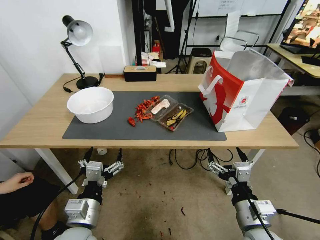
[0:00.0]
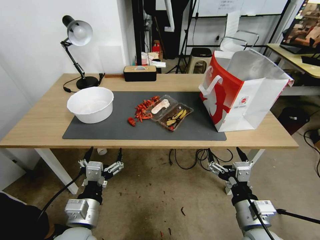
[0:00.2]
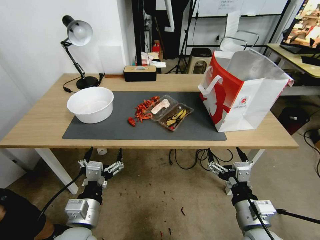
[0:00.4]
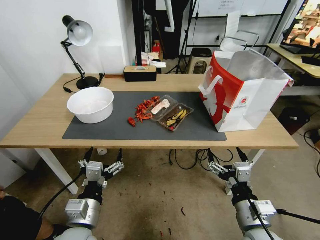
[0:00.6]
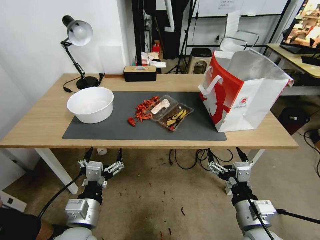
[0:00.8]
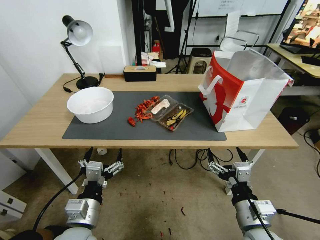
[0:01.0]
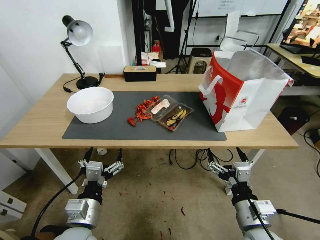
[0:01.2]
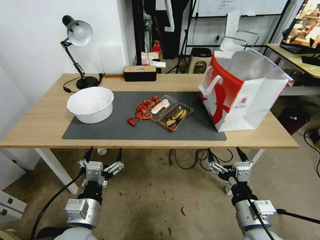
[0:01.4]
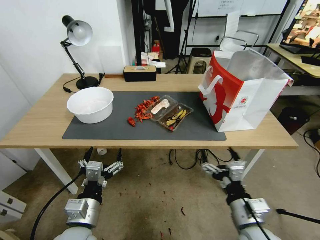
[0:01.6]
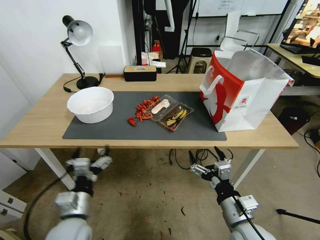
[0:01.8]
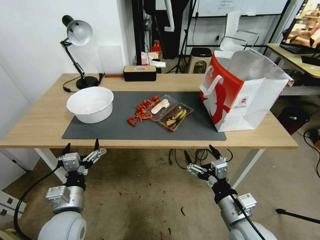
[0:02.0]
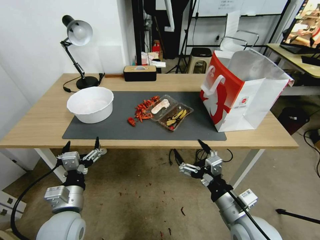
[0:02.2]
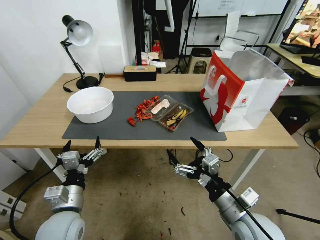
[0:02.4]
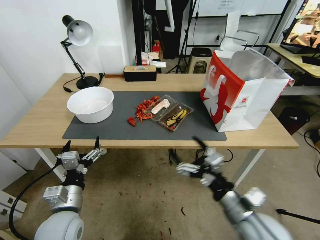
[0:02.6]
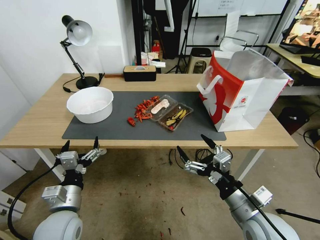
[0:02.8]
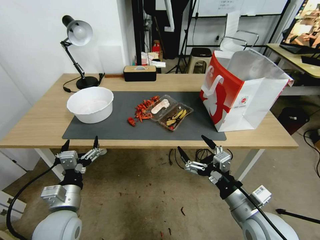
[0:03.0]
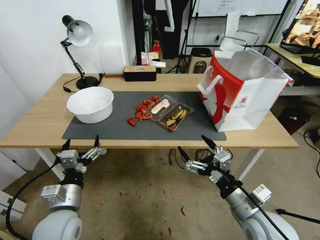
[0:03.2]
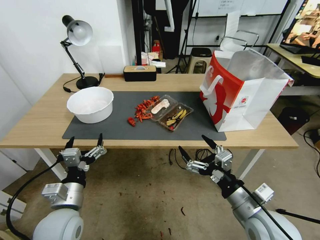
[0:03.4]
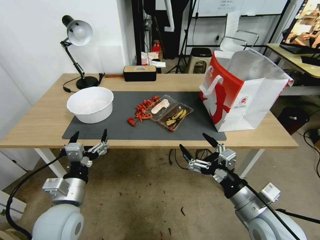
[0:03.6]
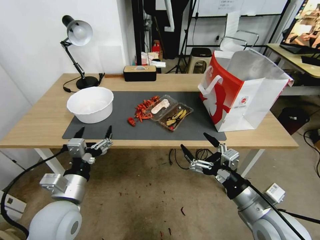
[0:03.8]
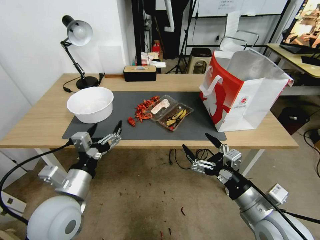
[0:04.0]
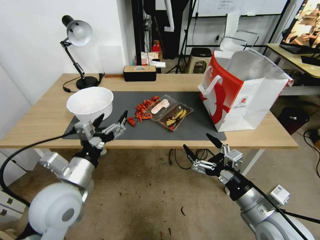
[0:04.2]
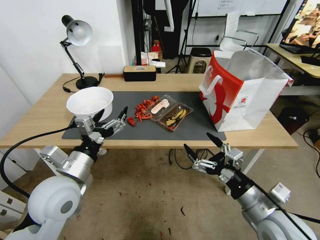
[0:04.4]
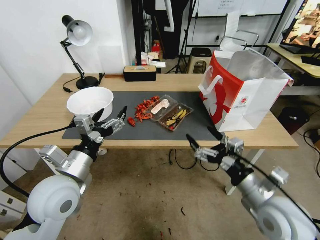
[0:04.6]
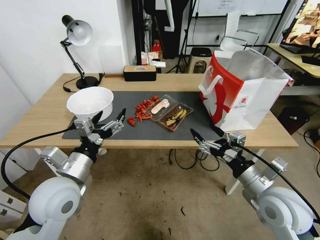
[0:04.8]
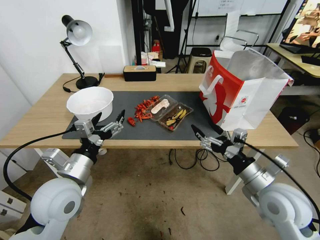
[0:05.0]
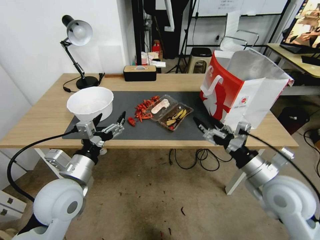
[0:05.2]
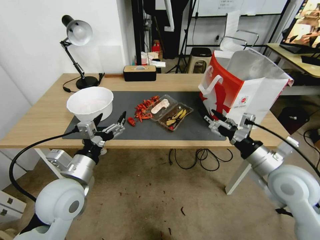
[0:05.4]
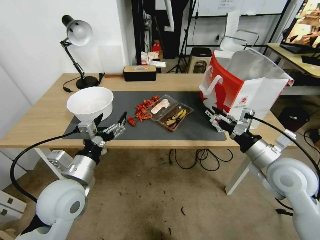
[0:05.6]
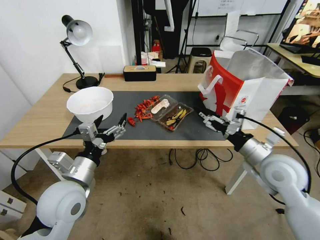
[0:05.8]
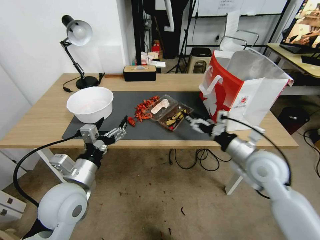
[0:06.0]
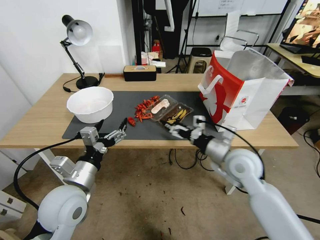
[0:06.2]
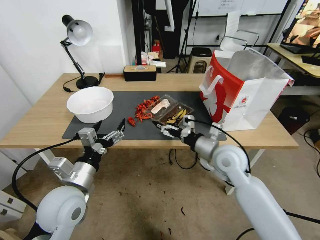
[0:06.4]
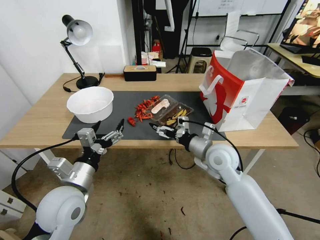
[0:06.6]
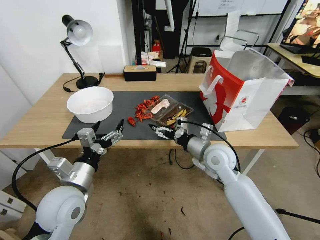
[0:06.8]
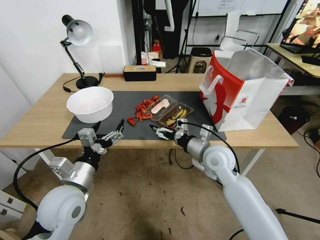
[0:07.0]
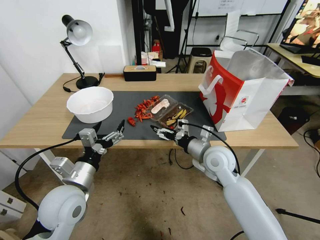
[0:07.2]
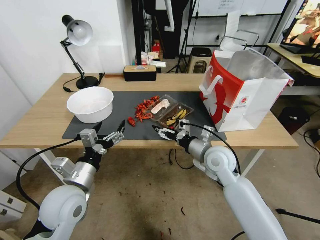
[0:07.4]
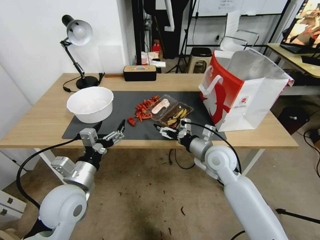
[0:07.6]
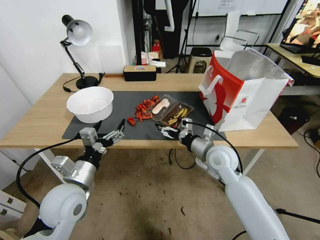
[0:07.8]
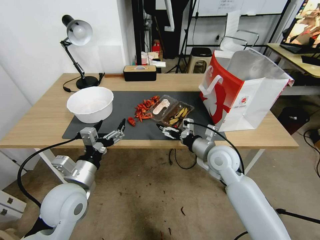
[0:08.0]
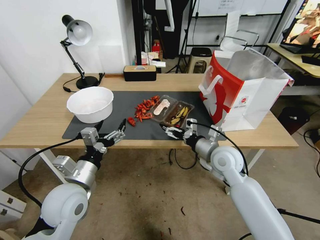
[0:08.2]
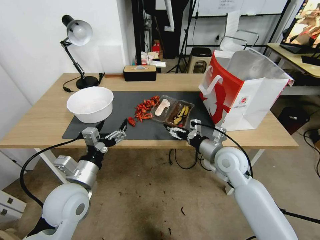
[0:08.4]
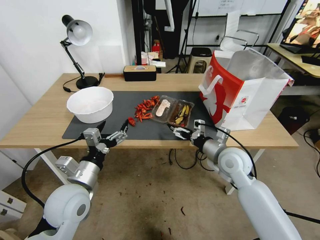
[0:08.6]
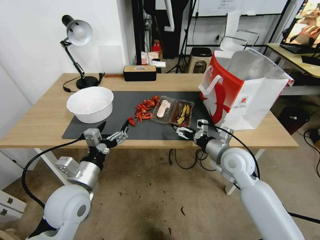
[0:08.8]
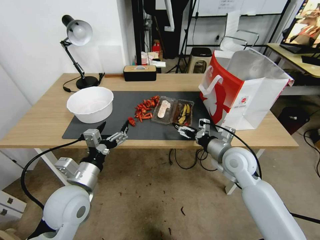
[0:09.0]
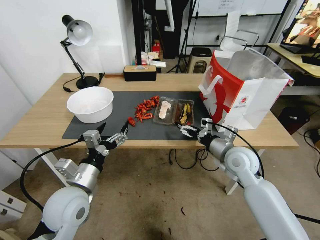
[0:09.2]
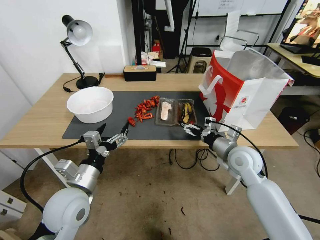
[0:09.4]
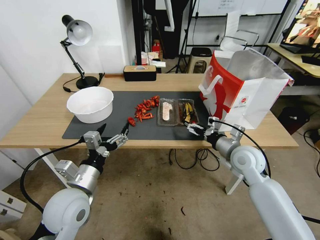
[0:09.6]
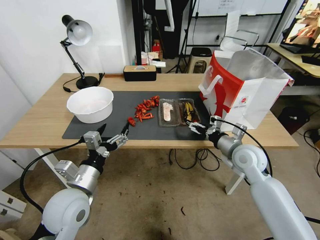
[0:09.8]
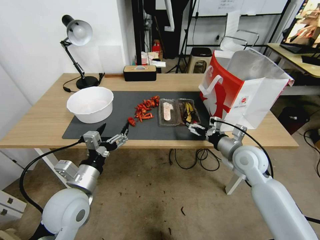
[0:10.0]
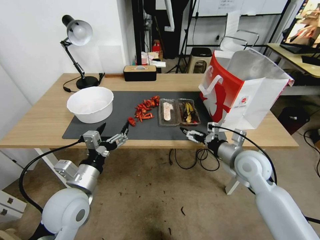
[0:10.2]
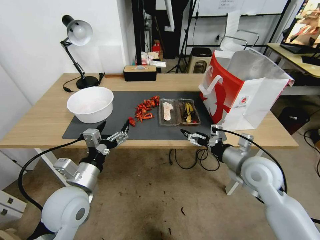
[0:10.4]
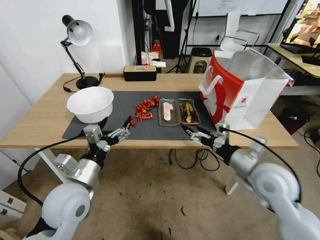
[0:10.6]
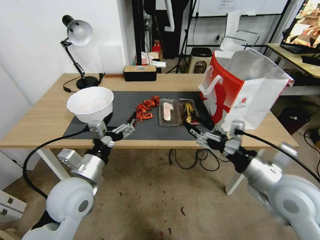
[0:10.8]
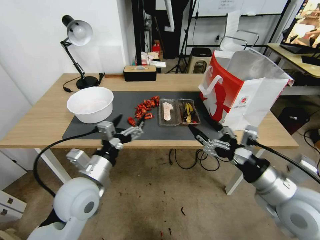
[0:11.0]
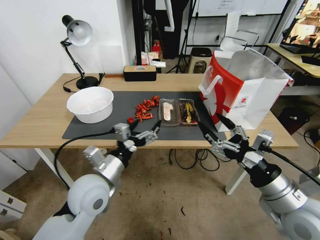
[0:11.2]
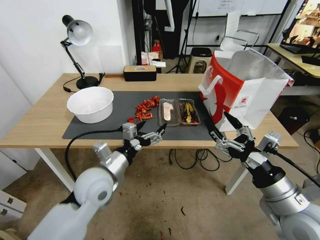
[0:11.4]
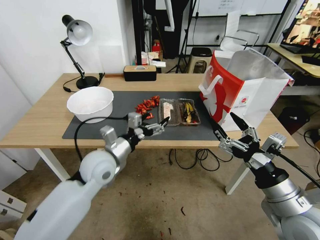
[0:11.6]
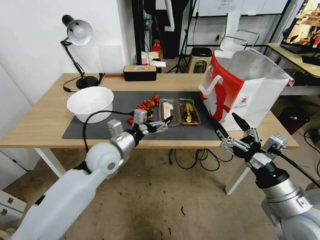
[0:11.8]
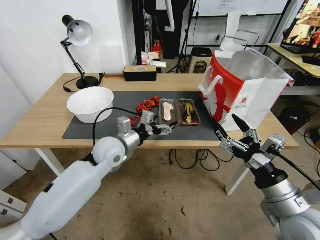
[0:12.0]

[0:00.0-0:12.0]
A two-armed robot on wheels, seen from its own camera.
0:01.6 to 0:03.0: The left gripper goes about 5 cm to the left.
0:03.0 to 0:04.4: The left gripper shifts some 10 cm upward.
0:04.4 to 0:06.0: The right gripper shifts about 15 cm forward.
0:06.0 to 0:07.6: The right gripper heads to the left and forward, covering roughly 10 cm.
0:07.6 to 0:09.0: The right gripper shifts about 5 cm to the right.
0:09.0 to 0:10.4: The right gripper moves some 5 cm.
0:10.4 to 0:12.0: The right gripper is displaced backward by roughly 15 cm. The left gripper moves forward and to the right, some 15 cm.

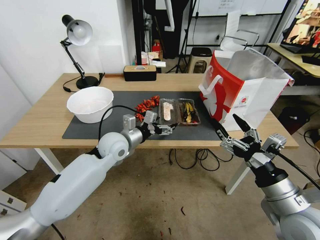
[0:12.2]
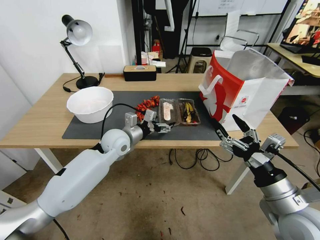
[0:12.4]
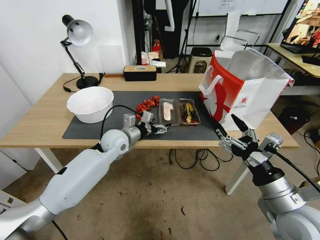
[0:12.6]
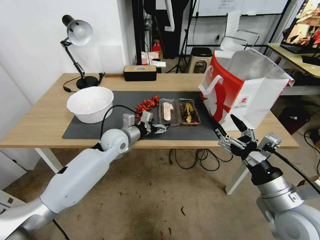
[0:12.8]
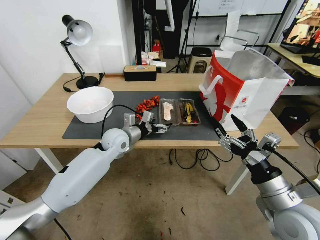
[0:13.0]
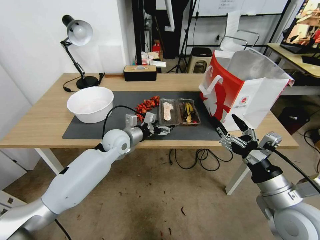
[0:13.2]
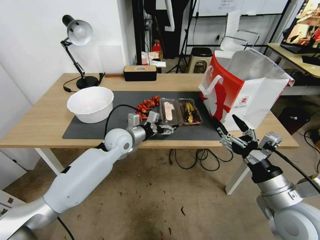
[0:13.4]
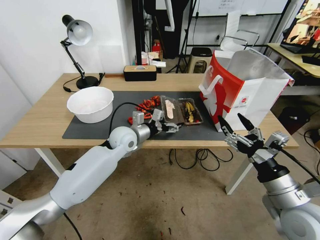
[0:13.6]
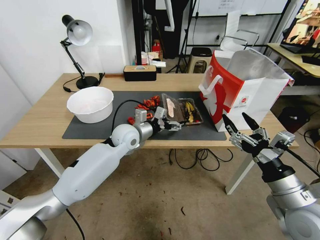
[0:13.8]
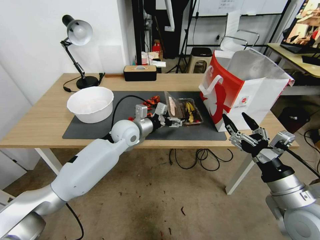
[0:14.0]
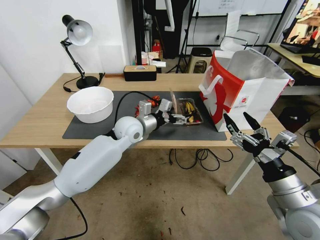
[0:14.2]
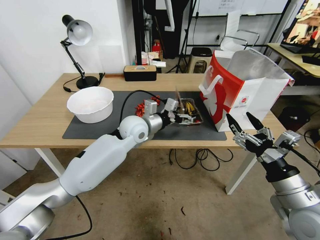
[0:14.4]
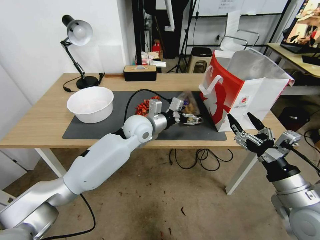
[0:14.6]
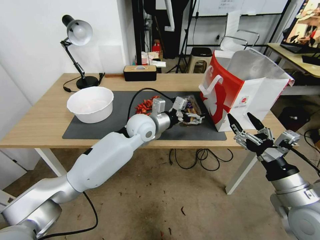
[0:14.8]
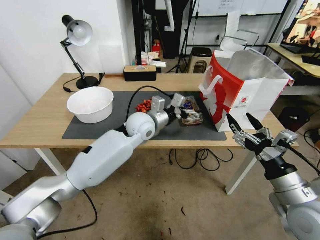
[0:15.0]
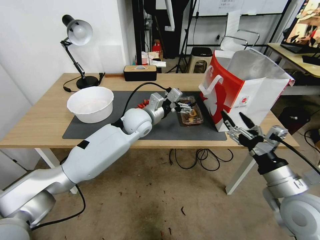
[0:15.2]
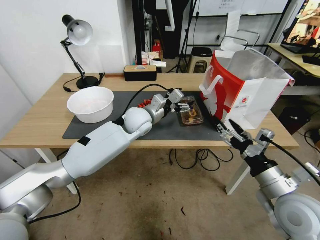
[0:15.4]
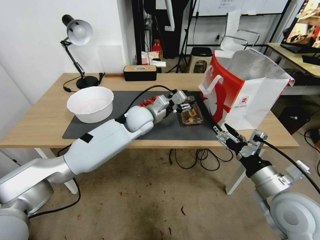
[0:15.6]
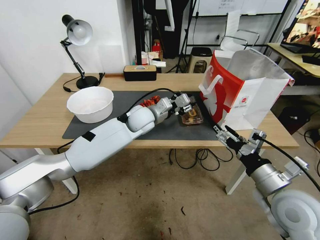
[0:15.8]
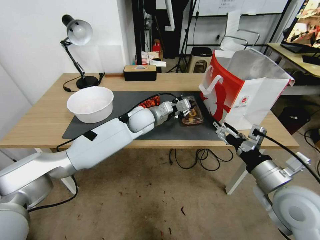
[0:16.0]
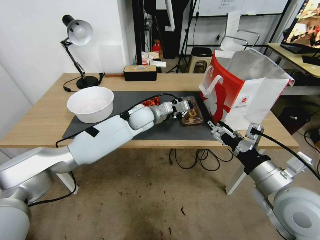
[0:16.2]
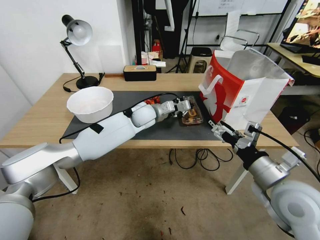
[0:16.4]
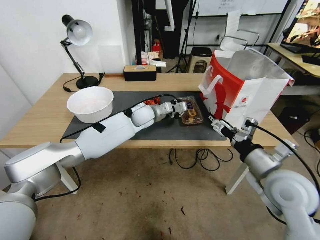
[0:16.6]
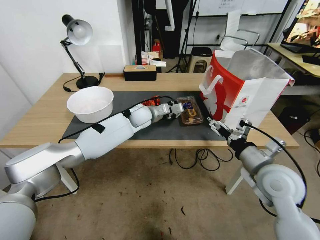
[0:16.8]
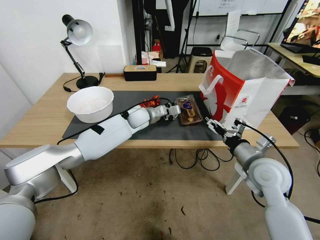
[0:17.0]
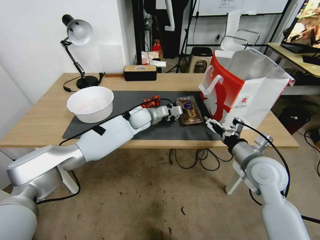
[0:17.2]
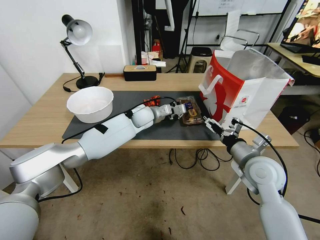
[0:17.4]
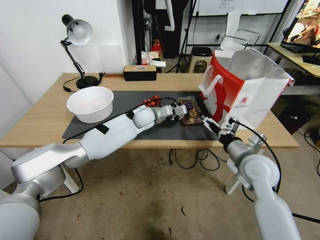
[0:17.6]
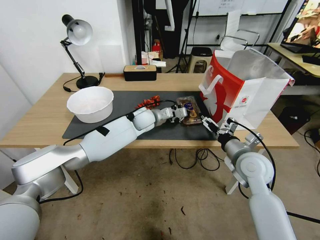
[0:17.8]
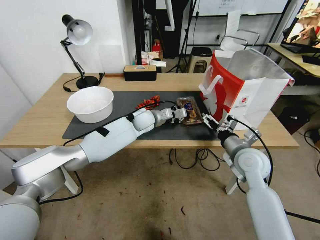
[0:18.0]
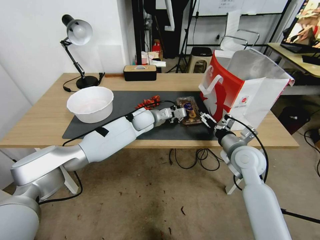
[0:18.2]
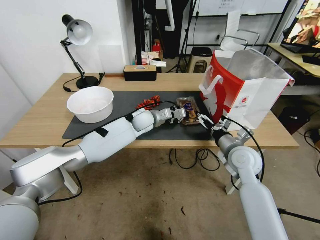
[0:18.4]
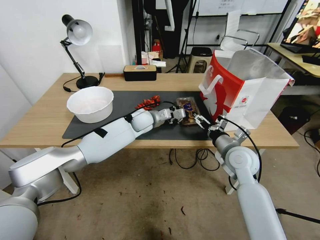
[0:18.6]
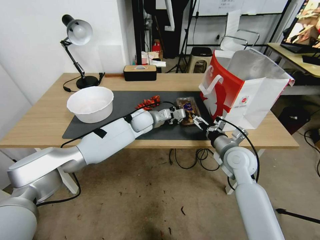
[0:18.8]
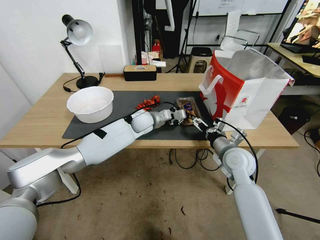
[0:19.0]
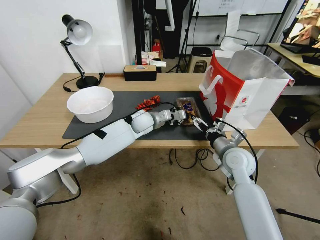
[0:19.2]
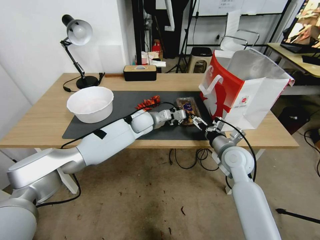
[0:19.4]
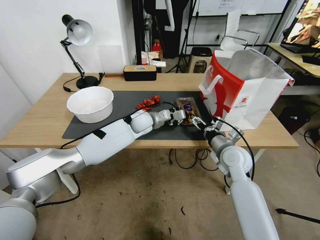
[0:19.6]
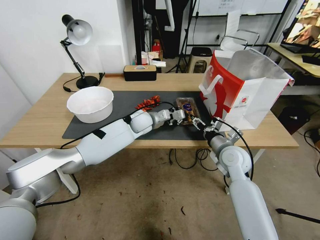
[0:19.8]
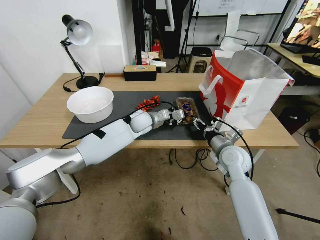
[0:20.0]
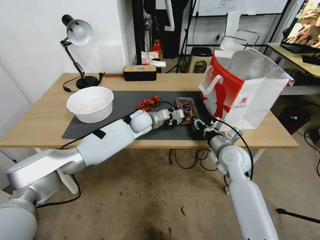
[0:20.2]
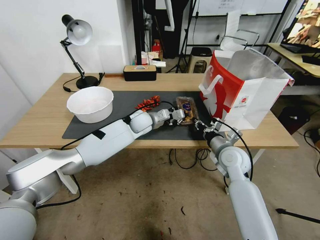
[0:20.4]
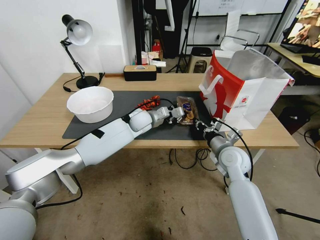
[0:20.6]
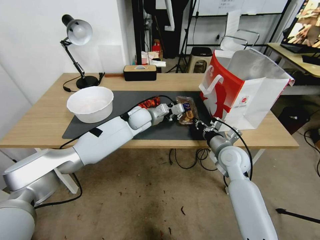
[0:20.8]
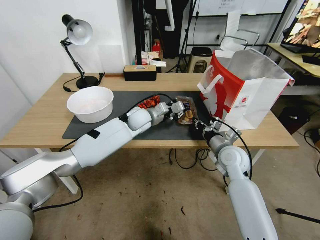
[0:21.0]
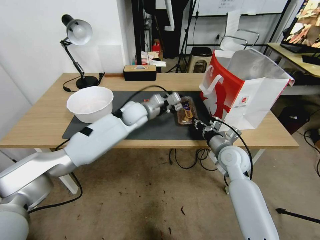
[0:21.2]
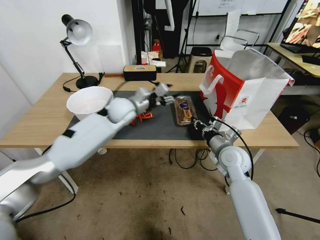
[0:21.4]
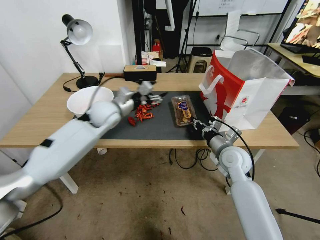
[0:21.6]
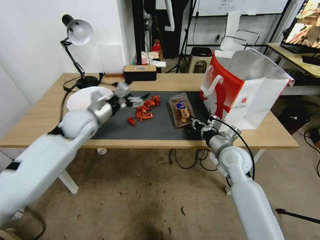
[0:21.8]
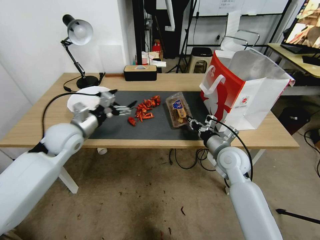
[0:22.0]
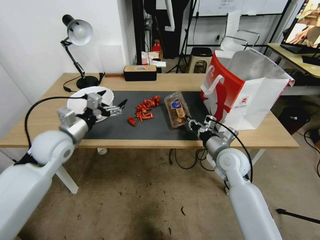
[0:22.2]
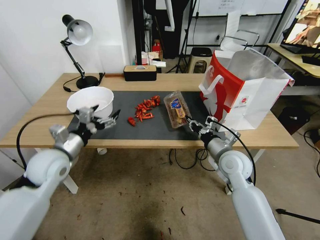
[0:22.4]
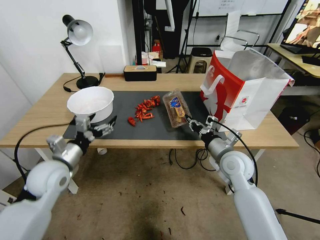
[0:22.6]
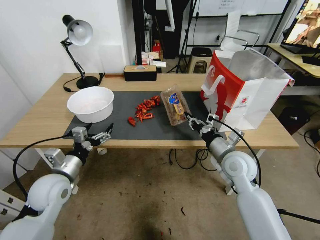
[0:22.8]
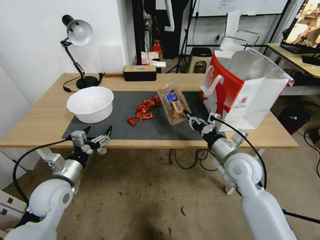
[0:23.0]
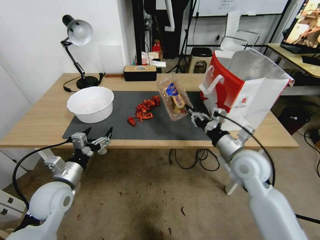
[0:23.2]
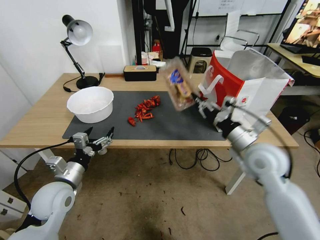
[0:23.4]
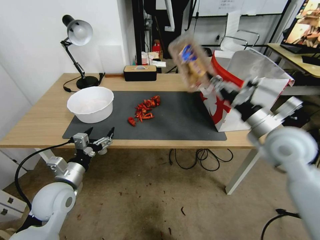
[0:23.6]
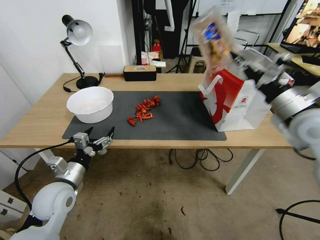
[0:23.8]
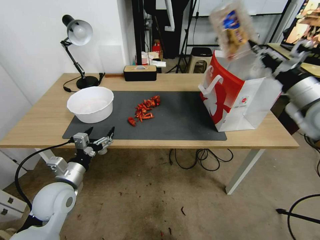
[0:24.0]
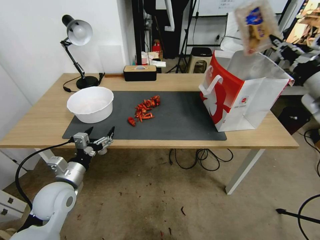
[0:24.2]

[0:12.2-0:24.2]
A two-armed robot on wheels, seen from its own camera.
0:12.2 to 0:13.8: The left gripper changes place by approximately 5 cm.
0:13.8 to 0:15.2: The left gripper travels upward by about 5 cm.
0:15.2 to 0:16.6: The right gripper moves approximately 5 cm. Meanwhile the left gripper heads forward, covering some 5 cm, and closes.
0:16.6 to 0:18.2: The right gripper travels forward and downward by roughly 15 cm.
0:18.2 to 0:19.8: The right gripper closes up.
0:19.8 to 0:21.2: The left gripper moves upward, approximately 5 cm, while the right gripper closes up.
0:21.2 to 0:22.6: The left gripper is displaced backward and to the left by roughly 30 cm, and opens up.
0:22.6 to 0:24.2: The right gripper moves upward and to the right, some 30 cm, while the left gripper moves approximately 5 cm.
